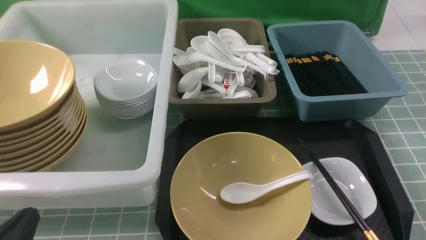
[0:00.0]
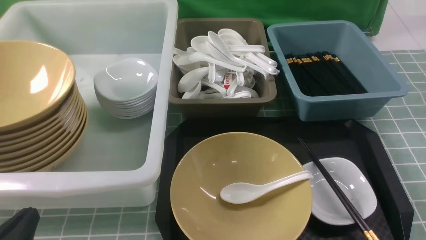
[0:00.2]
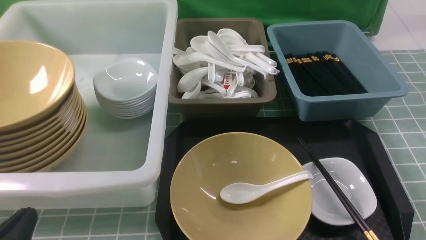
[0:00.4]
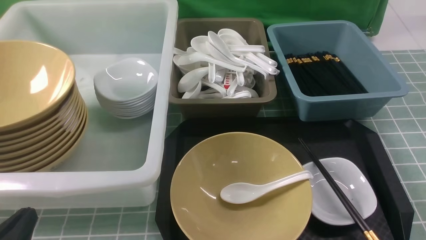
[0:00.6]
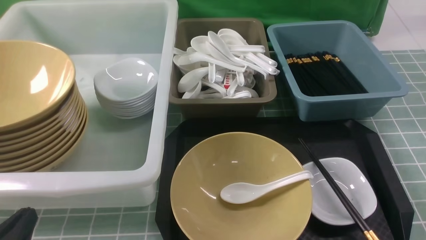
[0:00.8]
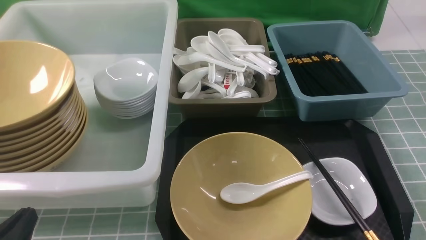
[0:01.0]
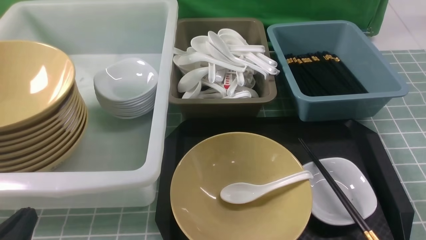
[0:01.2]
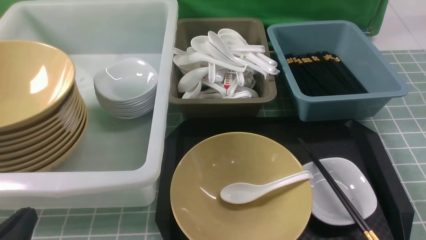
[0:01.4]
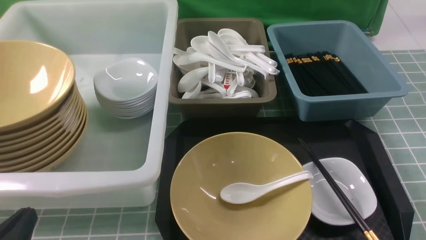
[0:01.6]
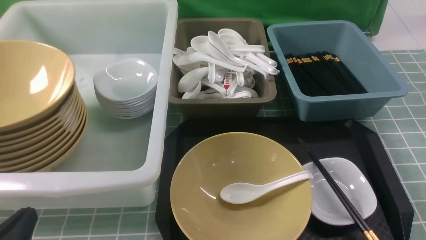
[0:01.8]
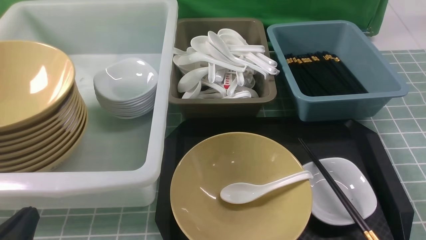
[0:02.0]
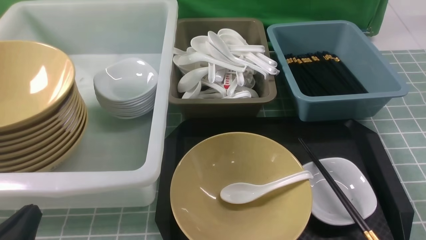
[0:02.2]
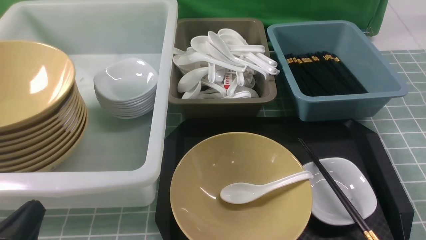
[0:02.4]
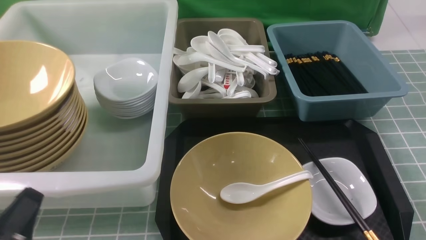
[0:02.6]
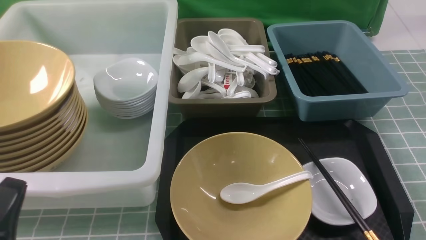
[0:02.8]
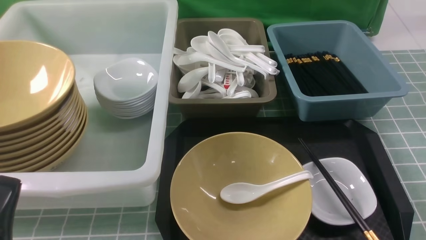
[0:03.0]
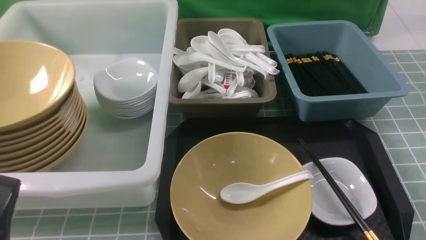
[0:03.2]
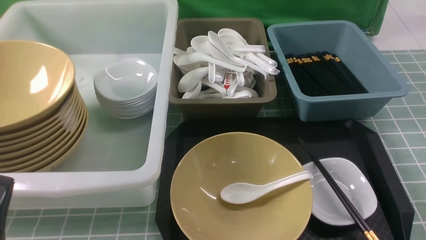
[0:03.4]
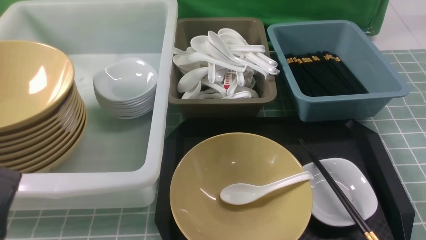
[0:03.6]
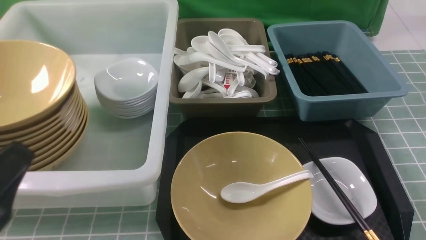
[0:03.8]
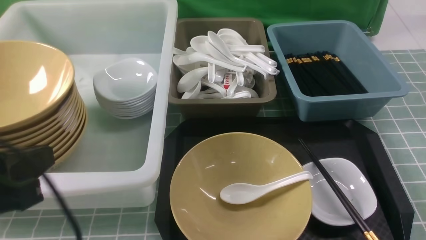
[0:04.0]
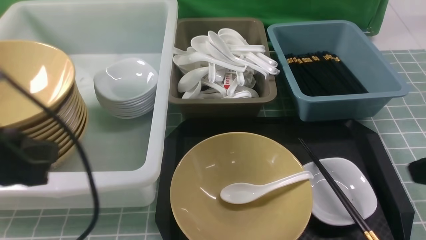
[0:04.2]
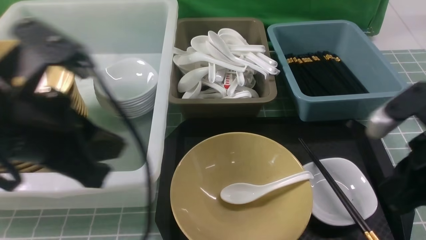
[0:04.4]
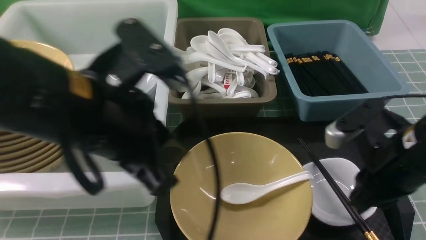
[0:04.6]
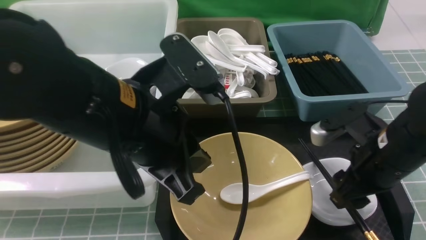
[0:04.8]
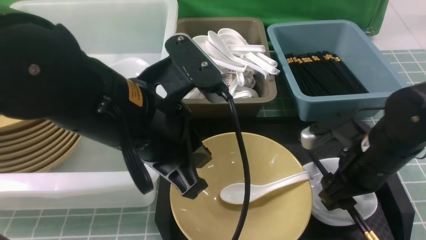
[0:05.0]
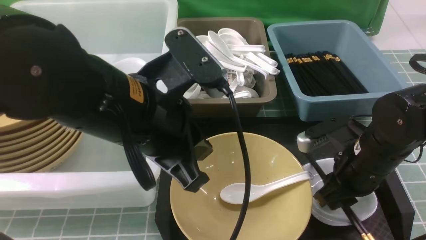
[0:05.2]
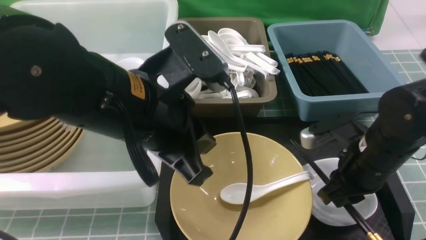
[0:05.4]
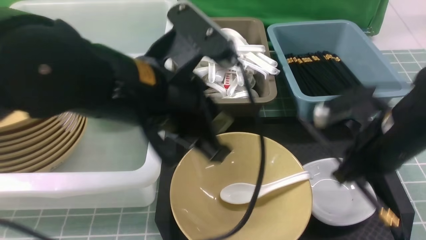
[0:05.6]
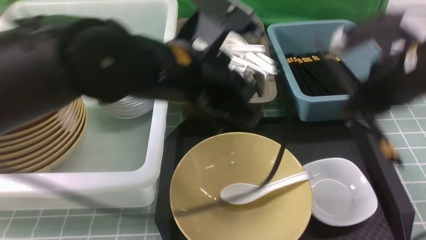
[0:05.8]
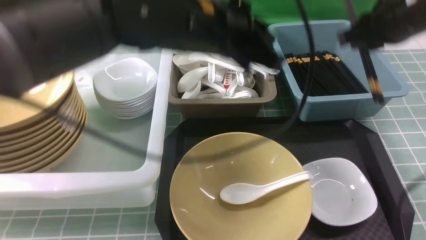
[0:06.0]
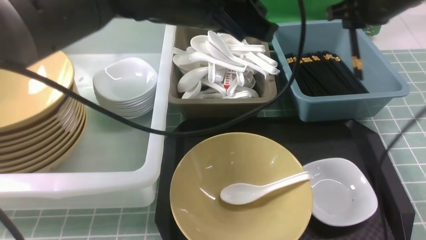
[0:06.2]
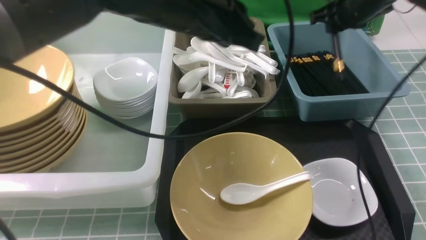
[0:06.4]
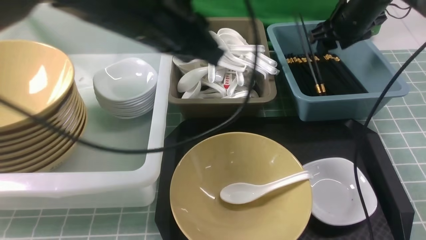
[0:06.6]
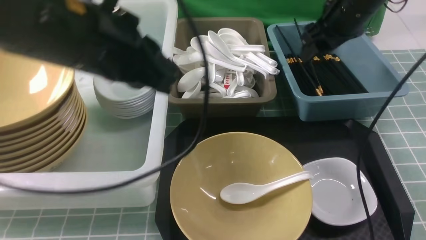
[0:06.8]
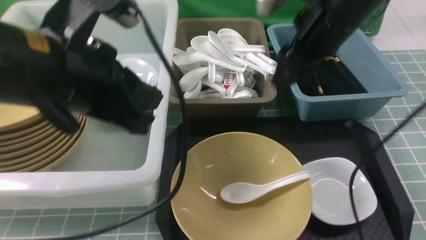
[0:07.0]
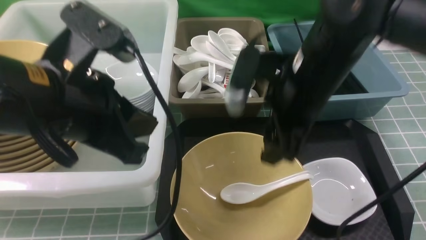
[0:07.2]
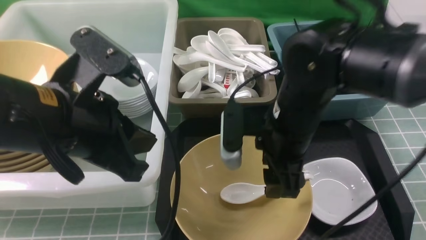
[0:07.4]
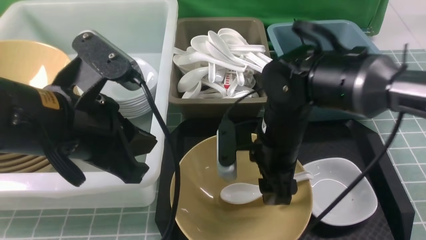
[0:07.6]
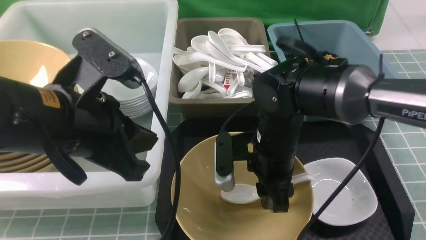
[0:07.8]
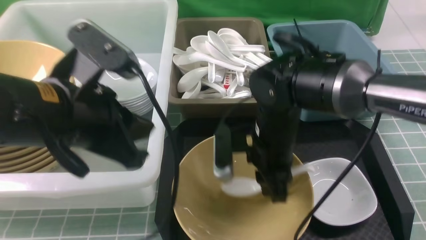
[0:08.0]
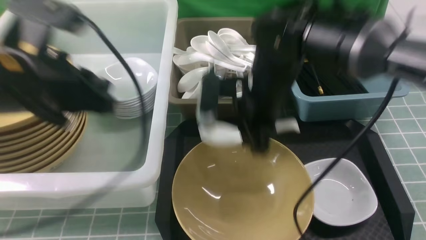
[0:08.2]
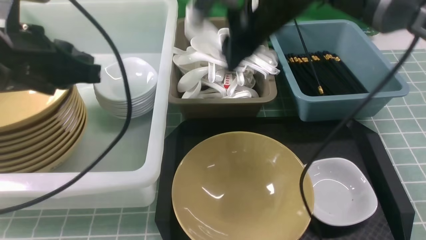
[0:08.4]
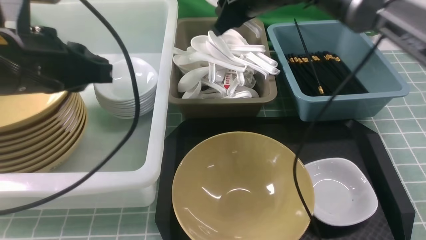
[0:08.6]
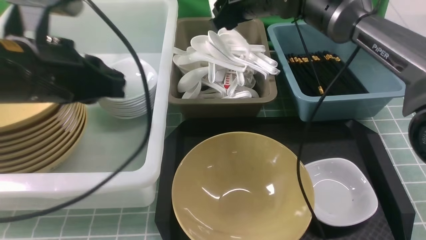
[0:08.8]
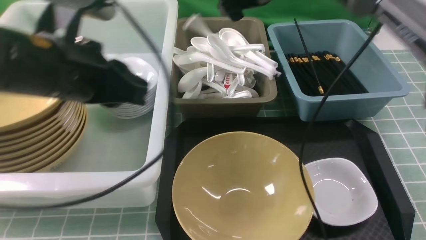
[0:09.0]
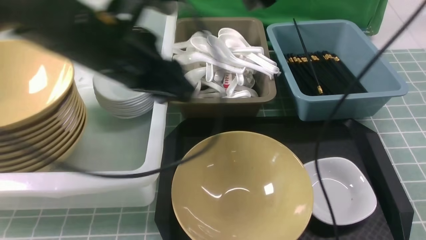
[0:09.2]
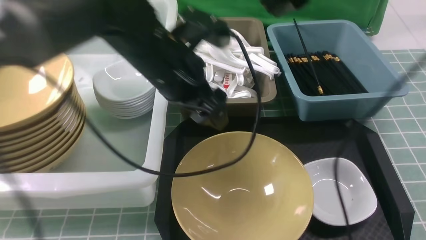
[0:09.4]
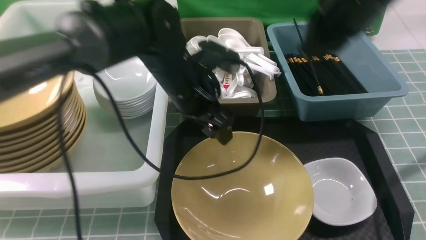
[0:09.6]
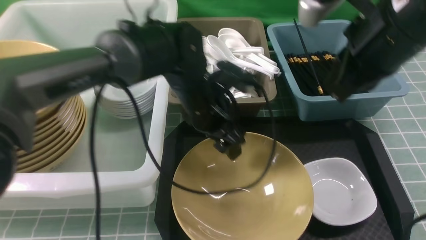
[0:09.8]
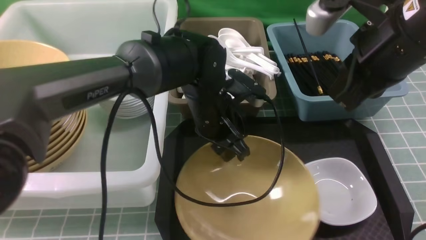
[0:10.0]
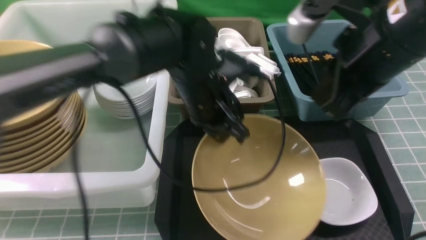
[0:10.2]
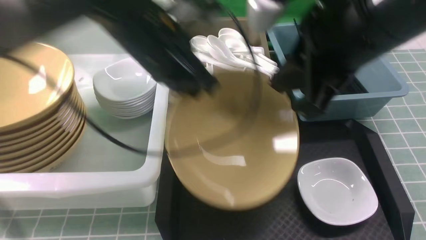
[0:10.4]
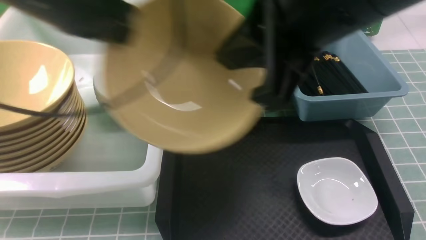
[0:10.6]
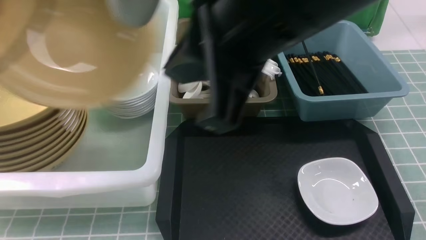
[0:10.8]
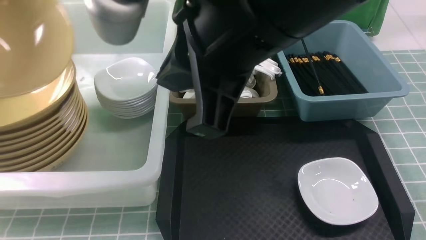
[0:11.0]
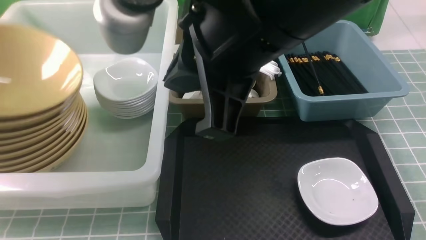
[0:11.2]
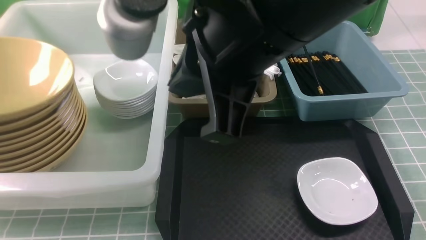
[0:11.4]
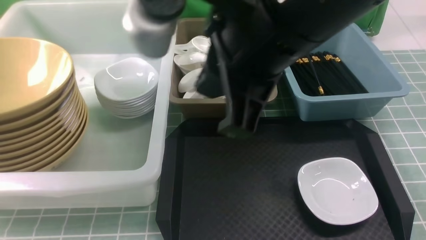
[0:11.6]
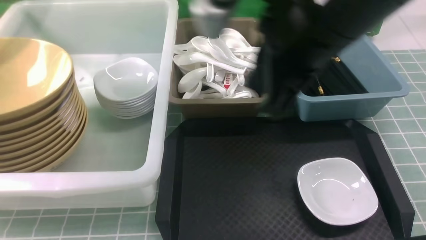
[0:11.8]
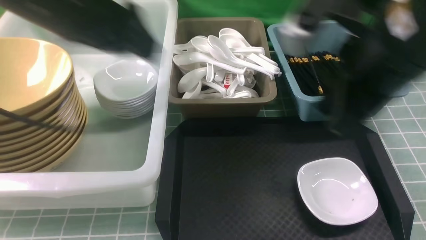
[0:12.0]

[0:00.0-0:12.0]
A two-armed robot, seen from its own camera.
Task of the whole recording: on blue table put chopsticks spoon bowls plates into blue grey white boxes.
Step, 0:00.0 to 0:05.4: use the right arm to grab the chopsticks.
Step, 0:05.6 to 0:06.6: use the right arm to put the chopsticks into the small storage box on the right.
Step, 0:06.8 to 0:08.0: use the right arm to grab the soup spoon in the middle.
Step, 0:08.2 to 0:08.8: use the right arm to put the soup spoon into the small storage box in the middle.
Step, 0:09.0 to 0:10.2: use the left arm to grab the yellow noodle bowl on the left.
Step, 0:10.4 to 0:11.4: use the left arm to put the noodle bowl into the large storage box on the left.
0:03.0 to 0:04.4: The left gripper goes some 20 cm upward, forward and to the right, while the right gripper travels forward, upward and to the left by roughly 20 cm.
0:04.4 to 0:06.0: The right gripper travels forward by about 15 cm, moves about 10 cm downward and comes back, and opens and closes again; the left gripper moves to the right and forward, some 20 cm.
0:06.0 to 0:07.6: The left gripper travels to the left and backward by some 15 cm; the right gripper moves to the left and downward, roughly 20 cm, reaches roughly 15 cm forward, then returns, and opens up.
0:07.6 to 0:09.0: The left gripper shifts roughly 5 cm forward. The right gripper heads forward and upward, covering roughly 20 cm, and closes, then reopens.
0:09.0 to 0:10.4: The right gripper moves backward, roughly 25 cm, and closes up, while the left gripper goes roughly 10 cm to the right and forward, and opens and closes again.
0:10.4 to 0:12.0: The right gripper moves roughly 10 cm to the left and comes back, while the left gripper moves upward, some 10 cm, travels to the left and back again, roughly 35 cm each way, and opens.

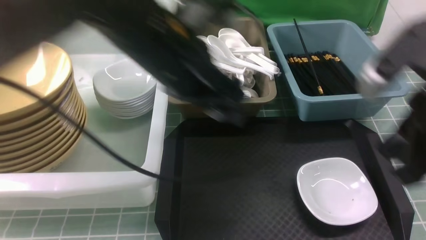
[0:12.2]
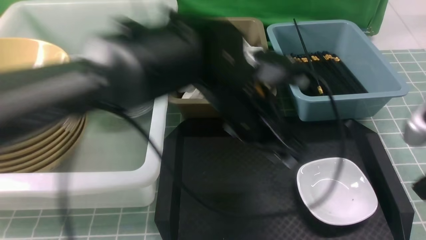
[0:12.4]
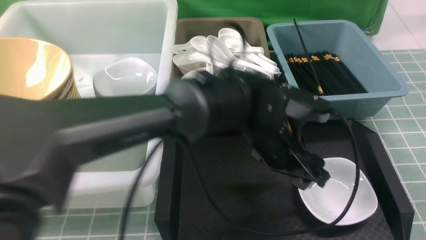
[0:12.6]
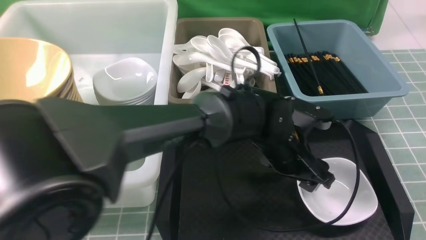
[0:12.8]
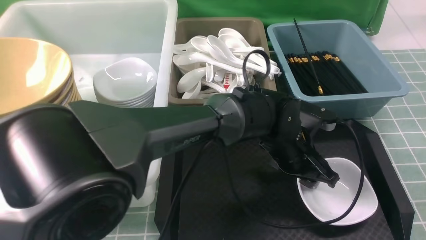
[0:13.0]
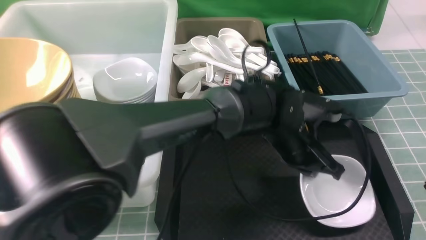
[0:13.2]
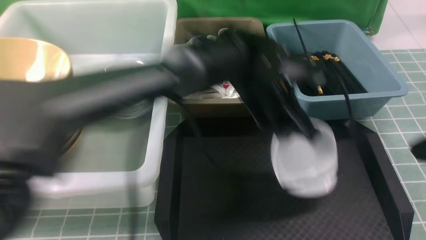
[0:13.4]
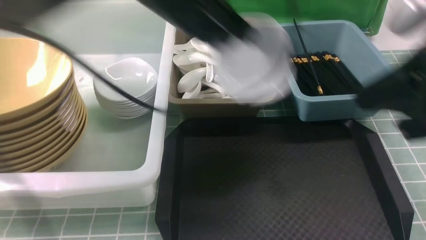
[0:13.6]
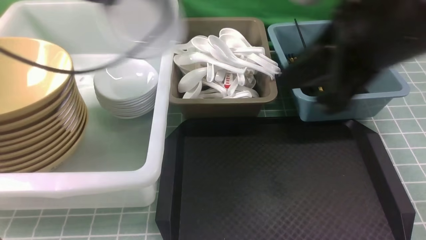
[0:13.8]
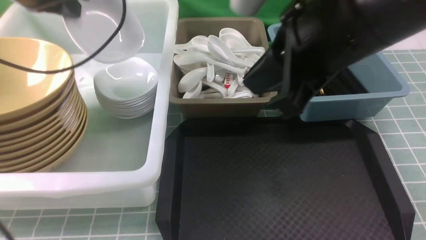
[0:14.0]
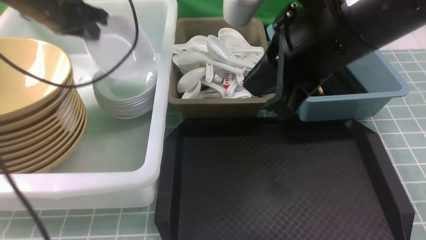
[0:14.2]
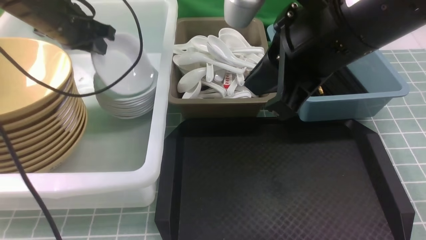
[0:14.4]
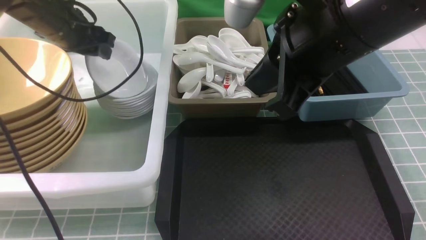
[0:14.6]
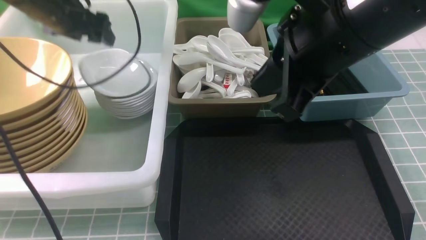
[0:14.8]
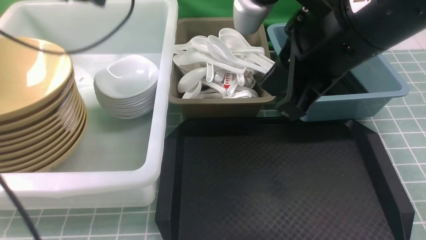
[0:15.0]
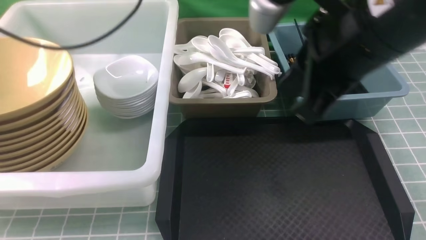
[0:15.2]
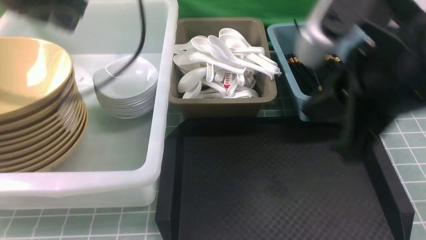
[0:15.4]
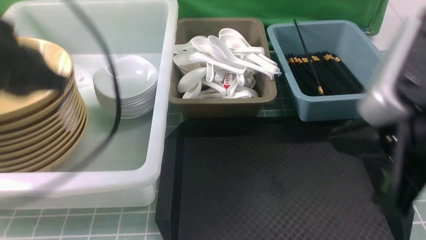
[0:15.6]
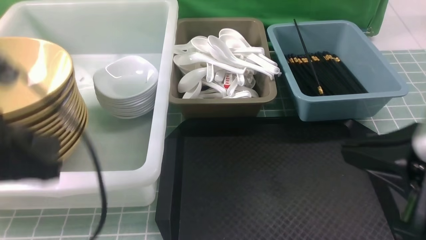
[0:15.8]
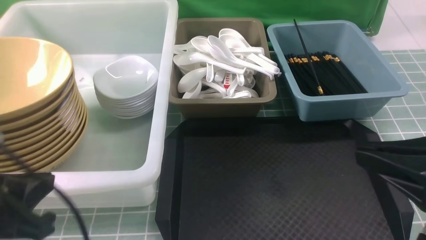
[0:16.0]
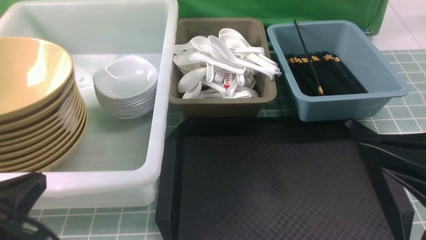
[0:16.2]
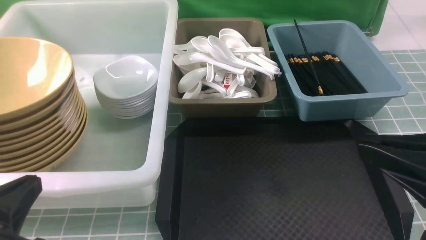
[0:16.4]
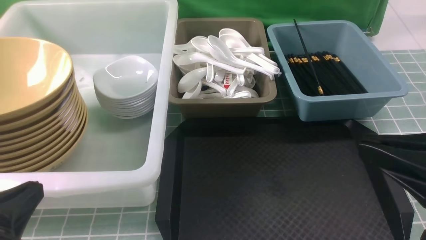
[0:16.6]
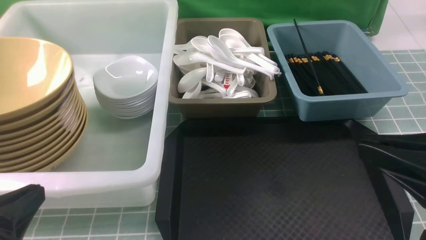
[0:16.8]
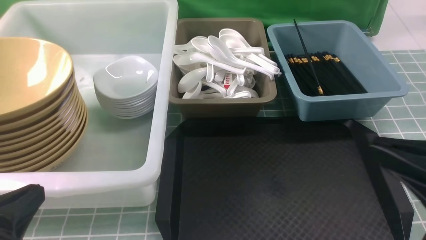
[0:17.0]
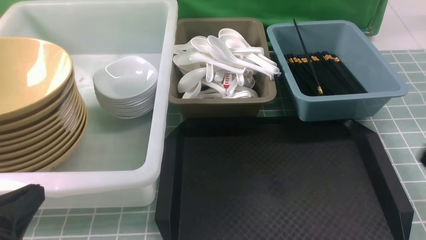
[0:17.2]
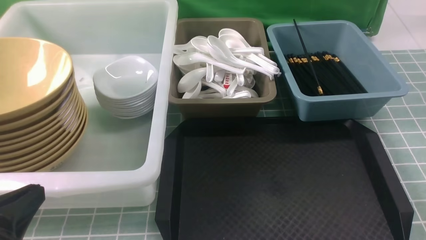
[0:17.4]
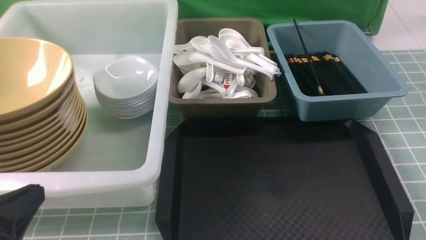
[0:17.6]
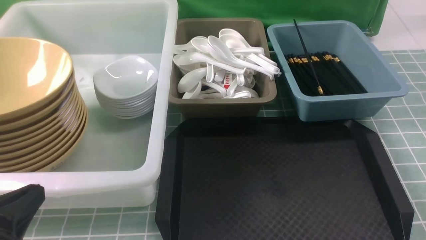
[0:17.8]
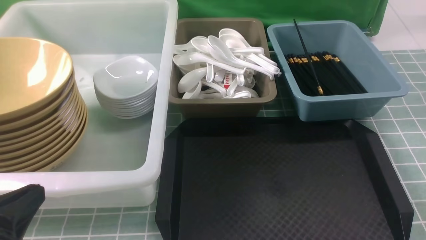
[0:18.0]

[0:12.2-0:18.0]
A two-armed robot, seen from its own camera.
Task of the whole recording: on blue table put chopsticks spoon bowls plates into blue grey white boxes.
Step, 0:12.2 to 0:13.2: use the left arm to grab the plate.
Step, 0:13.4 to 0:14.8: use the left arm to put the plate into the large storage box on the left.
0:12.2 to 0:13.6: The left gripper is displaced forward and to the right by some 10 cm, reaches roughly 20 cm downward, then returns, and closes; the right gripper moves some 10 cm backward and comes back.
0:13.6 to 0:15.0: The left gripper moves to the left, roughly 20 cm, and opens up. The right gripper shifts approximately 10 cm to the left and forward.
0:15.0 to 0:16.6: The left gripper goes some 35 cm backward, and closes, while the right gripper heads backward, to the right and downward, covering roughly 20 cm.
0:16.6 to 0:18.0: The right gripper travels downward and to the right by about 20 cm.
